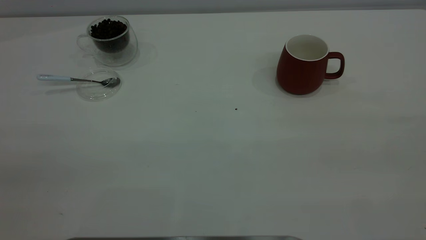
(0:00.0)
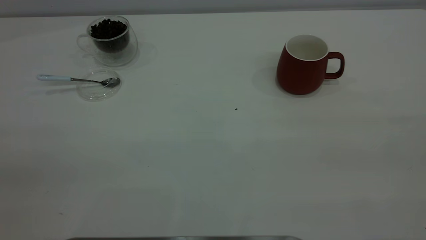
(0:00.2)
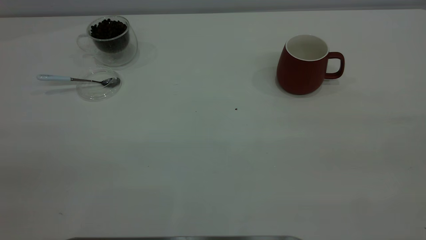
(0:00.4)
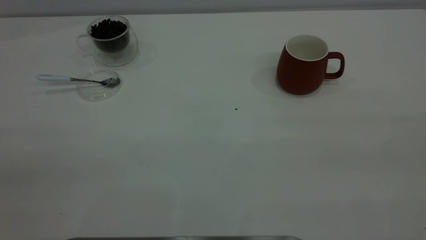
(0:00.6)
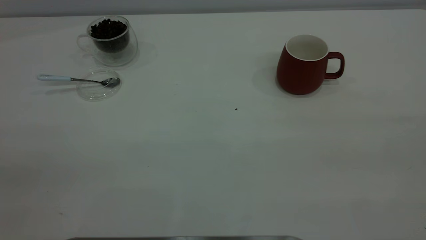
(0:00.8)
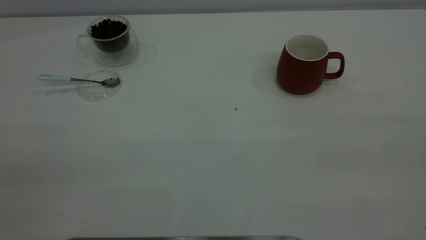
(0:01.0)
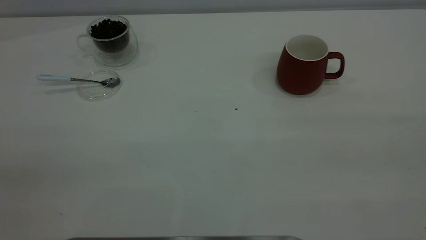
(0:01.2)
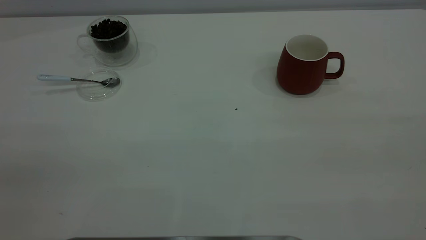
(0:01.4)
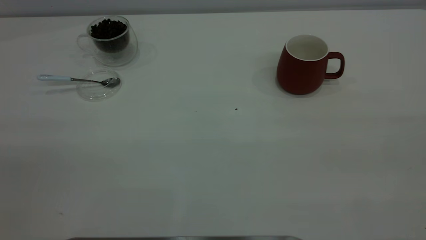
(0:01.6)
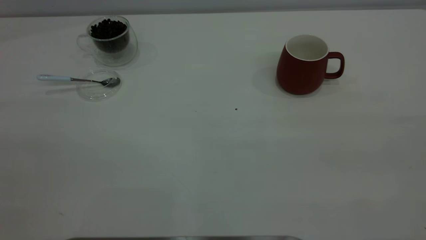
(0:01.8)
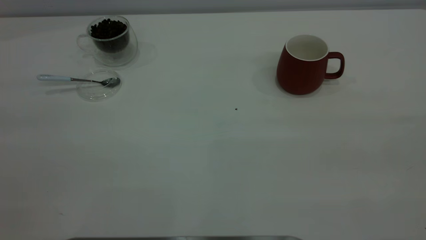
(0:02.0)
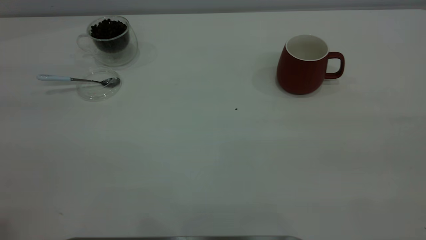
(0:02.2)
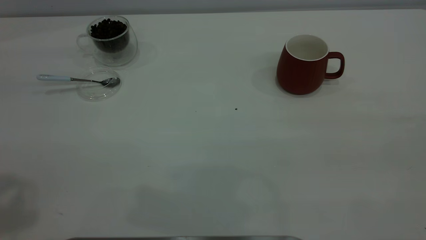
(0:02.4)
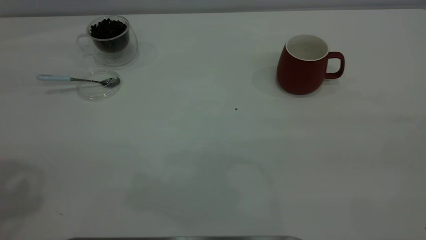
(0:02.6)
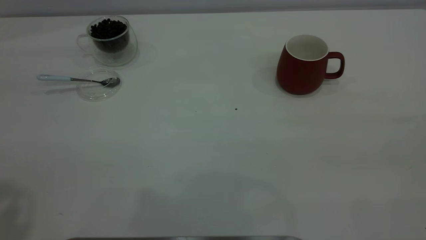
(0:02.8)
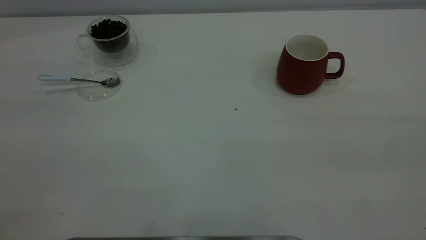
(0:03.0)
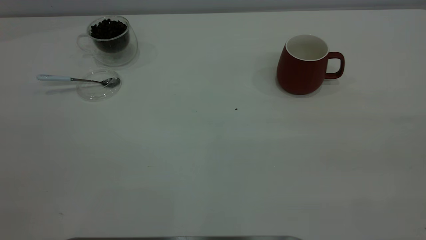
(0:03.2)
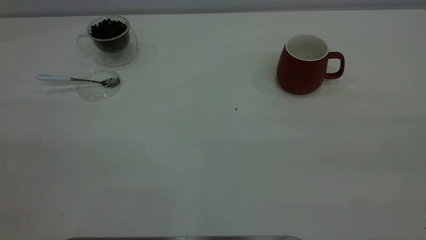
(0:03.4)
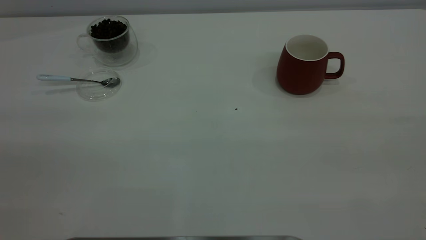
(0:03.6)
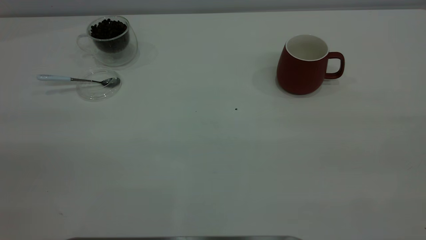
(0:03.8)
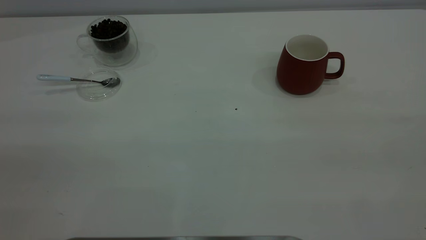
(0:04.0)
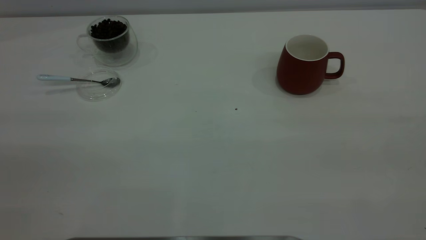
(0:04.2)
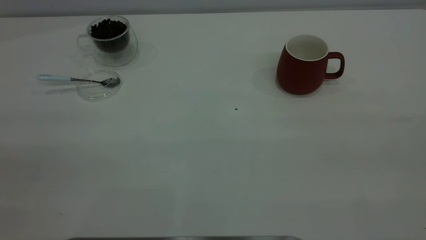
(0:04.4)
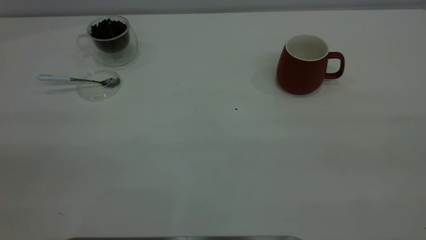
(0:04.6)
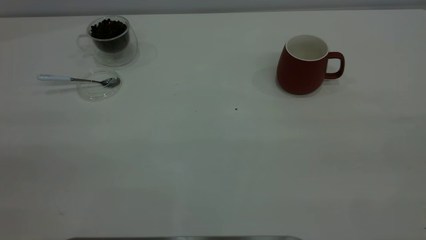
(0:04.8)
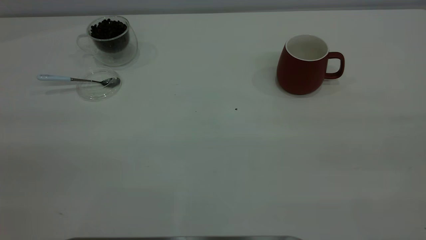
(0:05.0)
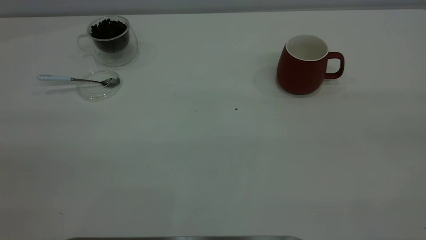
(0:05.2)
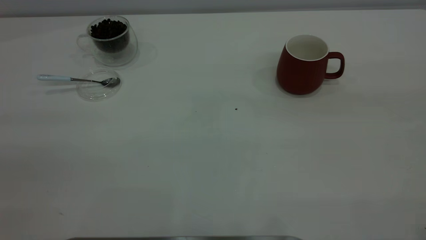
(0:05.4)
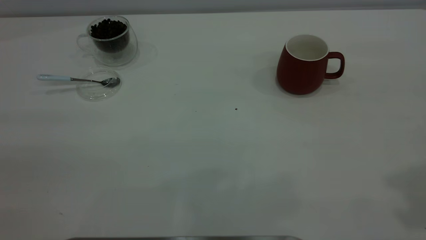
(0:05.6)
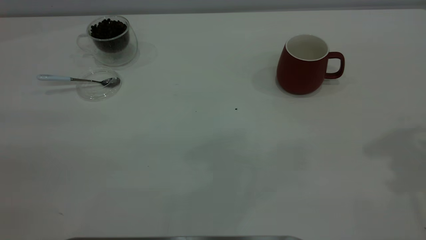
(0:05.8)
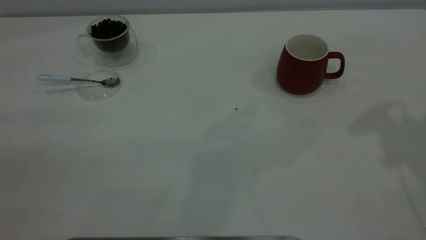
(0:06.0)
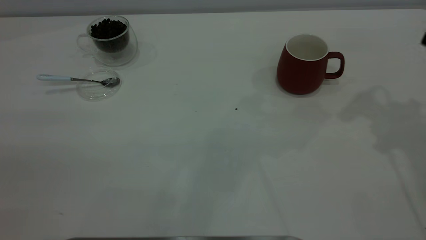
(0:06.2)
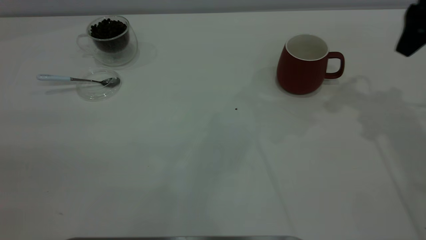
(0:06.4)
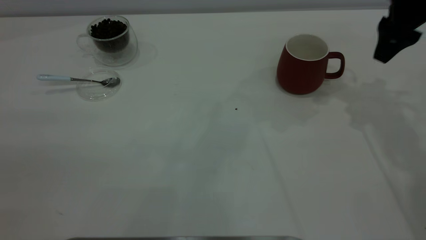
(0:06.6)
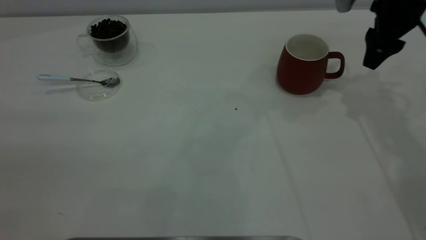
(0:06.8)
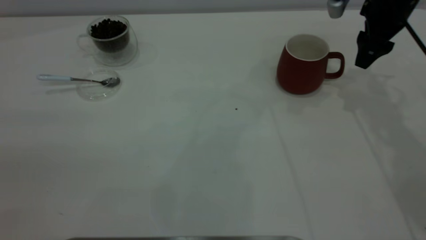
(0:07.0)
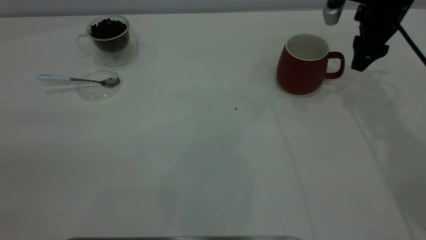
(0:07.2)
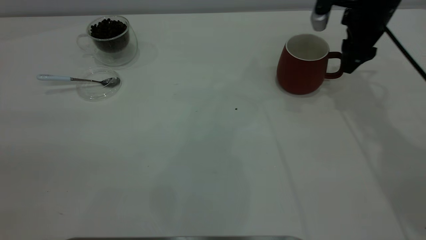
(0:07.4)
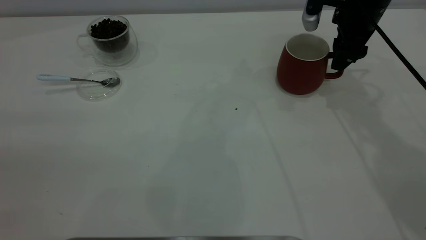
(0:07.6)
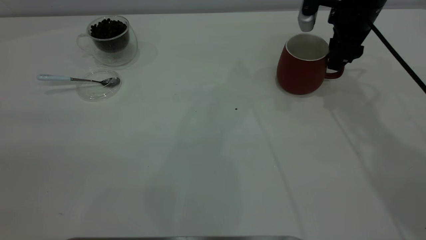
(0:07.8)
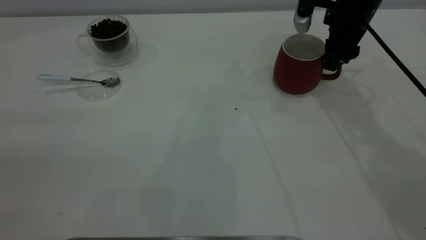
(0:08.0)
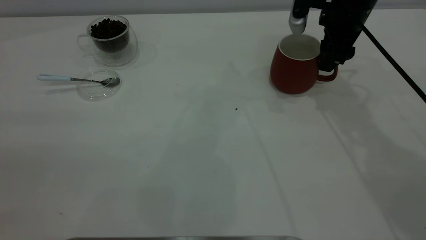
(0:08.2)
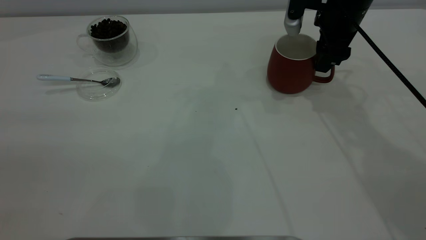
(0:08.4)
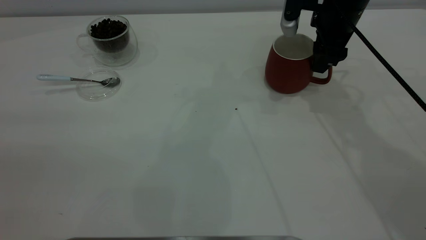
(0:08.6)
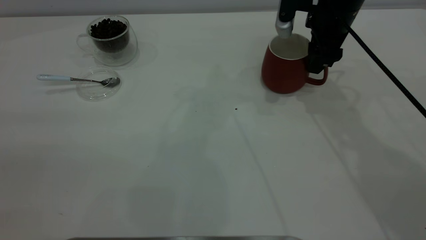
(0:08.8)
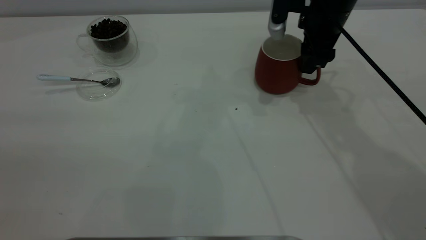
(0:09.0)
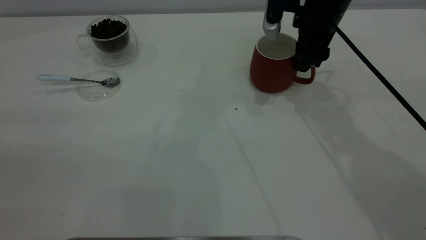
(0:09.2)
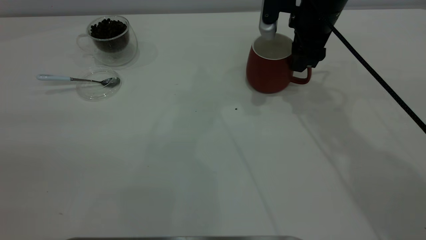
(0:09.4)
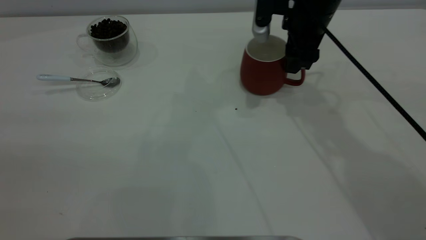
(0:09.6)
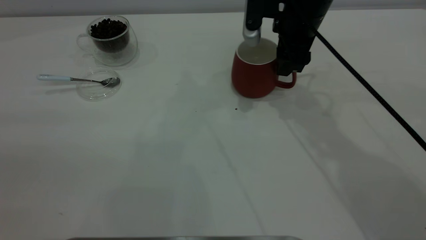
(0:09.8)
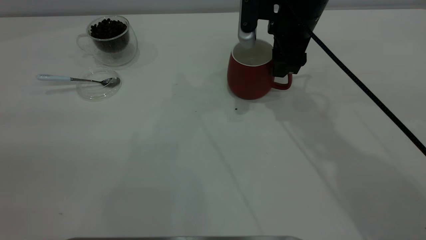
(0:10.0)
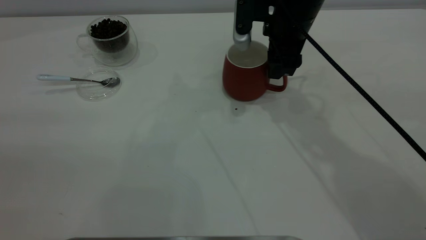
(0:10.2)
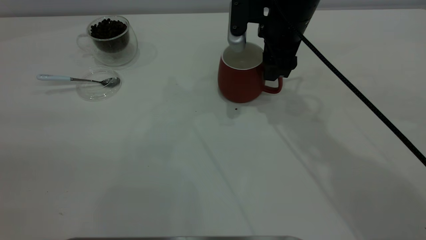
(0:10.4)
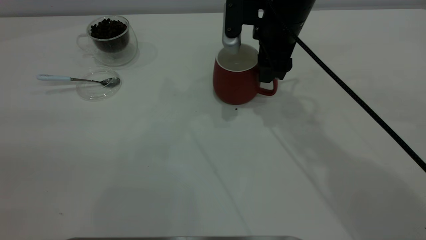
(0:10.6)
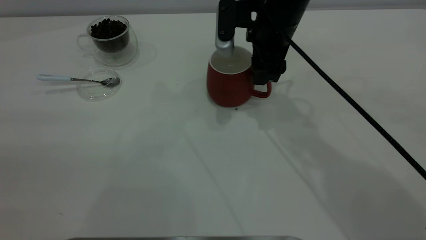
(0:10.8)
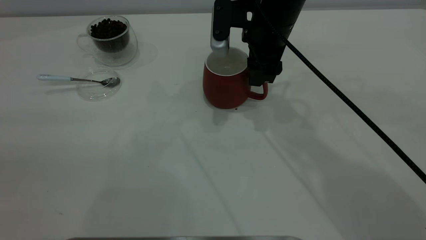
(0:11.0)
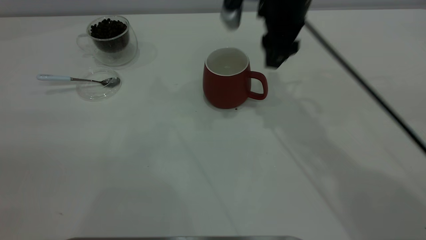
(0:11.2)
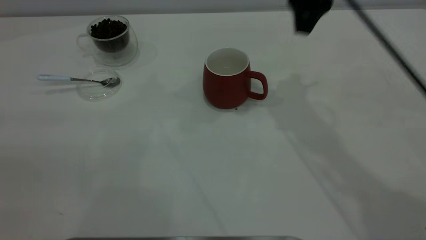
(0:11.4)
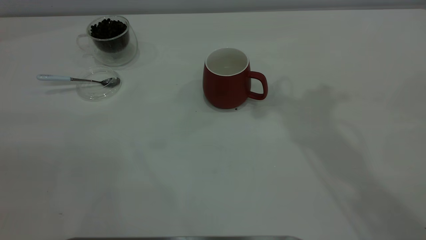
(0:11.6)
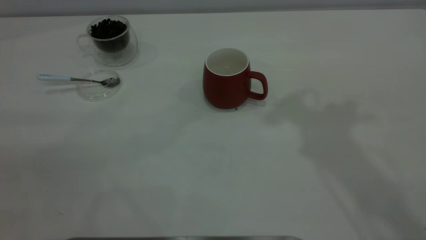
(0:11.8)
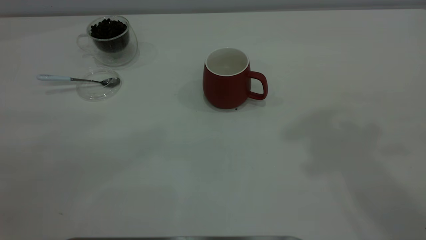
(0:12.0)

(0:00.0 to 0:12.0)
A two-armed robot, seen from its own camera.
Task of the whole recording: the right gripper place the red cup in the center of the table, the left gripper take the blue spoon from the cup lid and scoop out the coffee beans from the coffee cup and put them into the red cup, the left gripper put the spoon back into the cup lid.
Step, 0:00.0 - 0:11.0: Move the cup to the center of view.
0:06.0 - 0:07.6: The right gripper goes approximately 20 cm downward, forward and to the left.
0:07.6 - 0:09.0: The right gripper heads to the left, covering approximately 5 cm.
0:09.0 - 0:10.4: The right gripper moves to the left, roughly 5 cm.
0:10.4 - 0:12.0: The right gripper goes some 40 cm upward and backward.

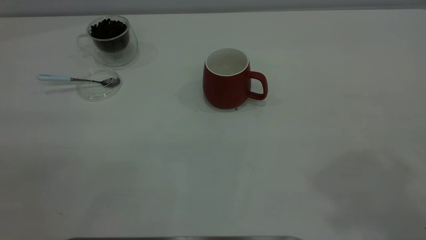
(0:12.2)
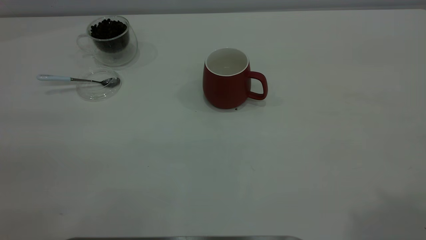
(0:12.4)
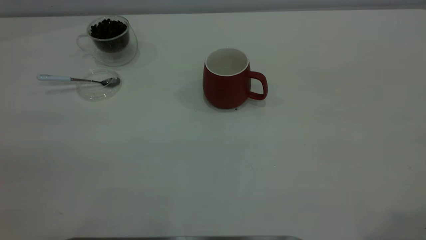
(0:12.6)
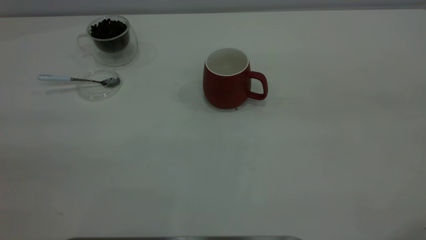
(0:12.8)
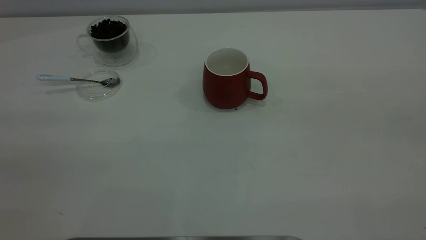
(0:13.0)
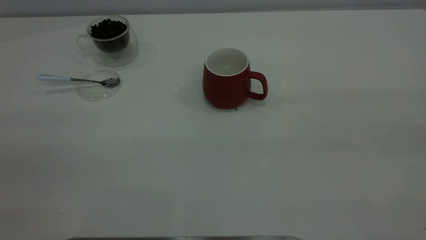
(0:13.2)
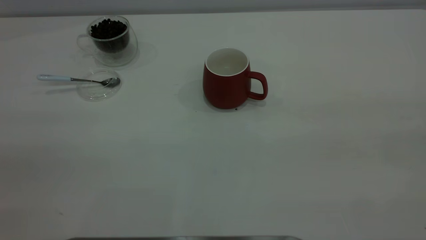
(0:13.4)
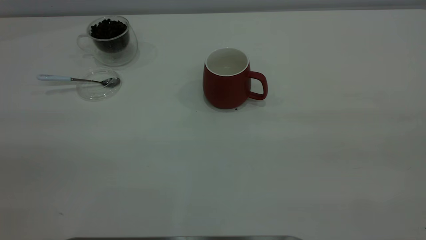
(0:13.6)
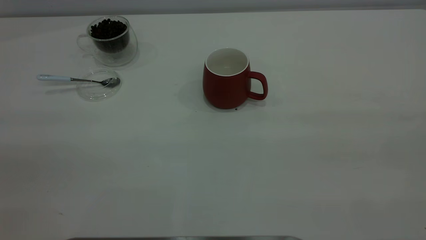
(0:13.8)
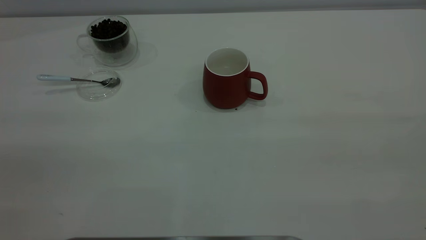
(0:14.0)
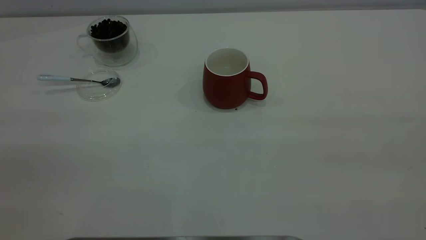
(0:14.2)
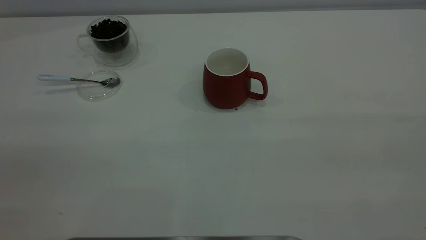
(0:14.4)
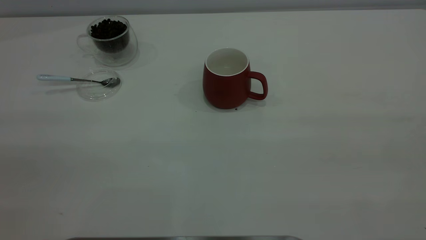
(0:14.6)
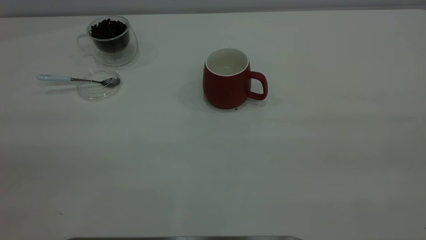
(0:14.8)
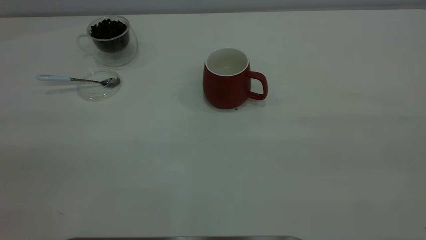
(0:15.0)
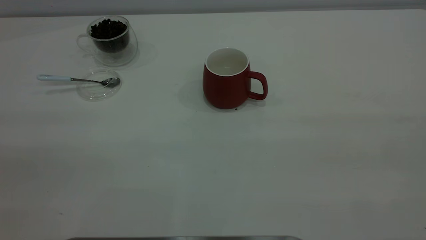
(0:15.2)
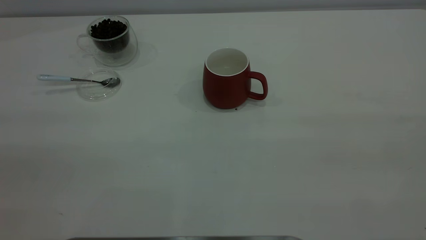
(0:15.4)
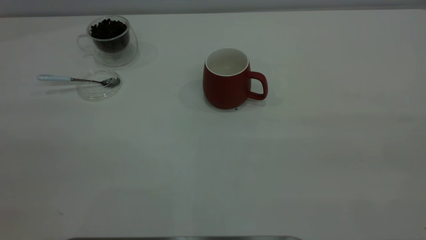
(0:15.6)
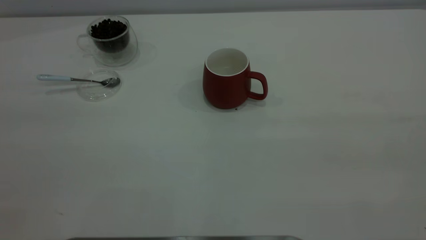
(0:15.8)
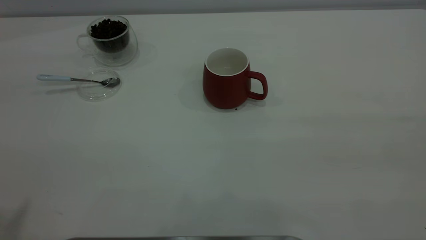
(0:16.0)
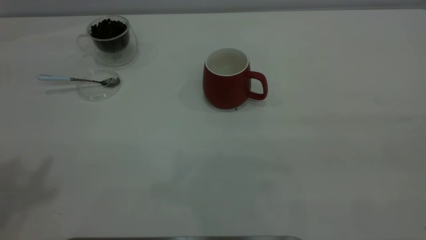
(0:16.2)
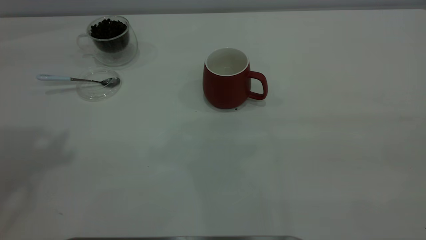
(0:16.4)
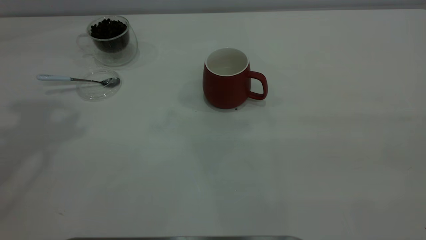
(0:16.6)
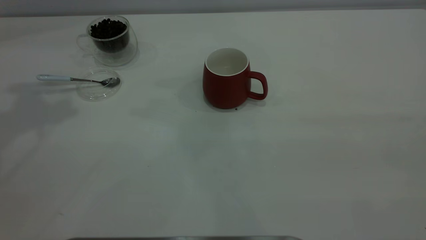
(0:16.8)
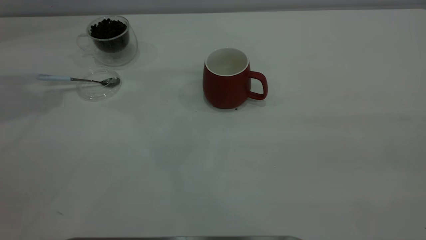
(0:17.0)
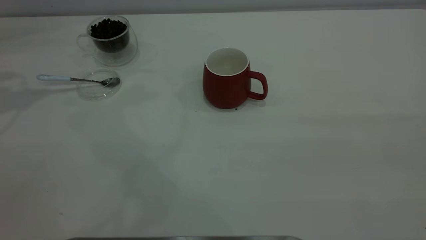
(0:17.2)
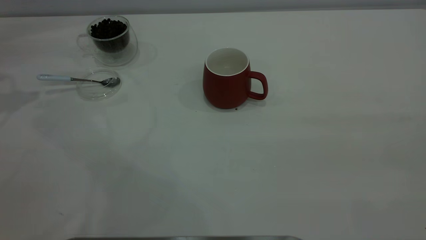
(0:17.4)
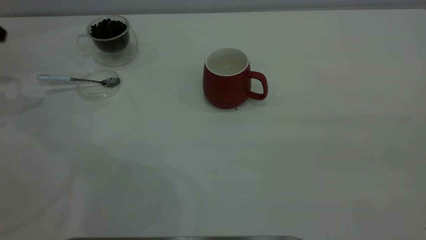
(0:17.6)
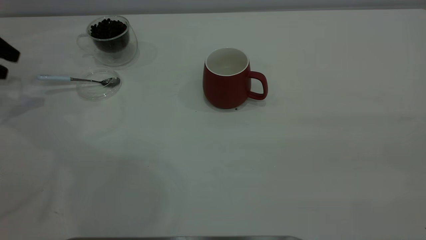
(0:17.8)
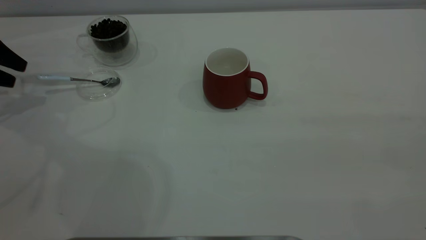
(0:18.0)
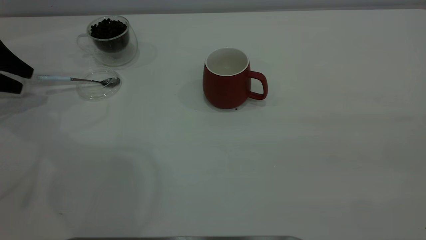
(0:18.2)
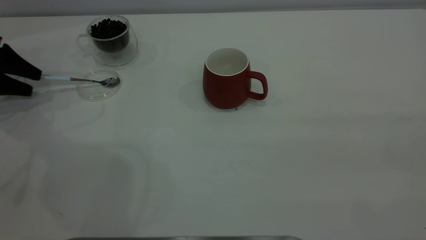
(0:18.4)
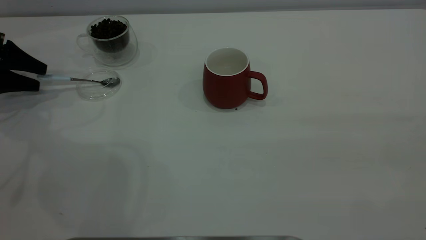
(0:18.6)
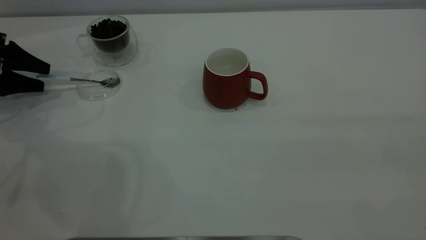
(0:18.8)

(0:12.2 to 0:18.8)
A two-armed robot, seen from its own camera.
Task of the whole recording: the right gripper place the red cup in the center of the table, the left gripper take the blue spoon from the cup lid and scoop out the coffee beans from the coffee cup and put them into the red cup, the left gripper put the spoon back into the cup lid.
0:13.8 - 0:15.4: Neither gripper changes place.
0:17.2 - 0:18.8: The left gripper heads downward, covering about 20 cm.
